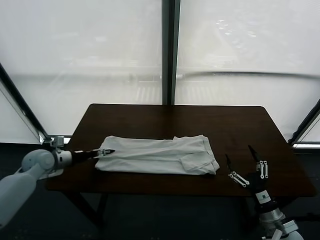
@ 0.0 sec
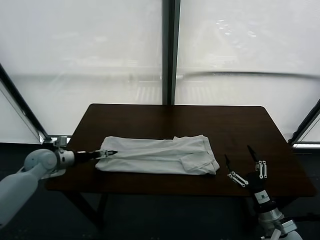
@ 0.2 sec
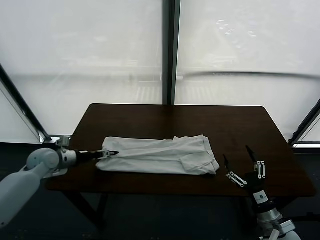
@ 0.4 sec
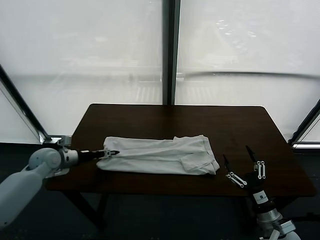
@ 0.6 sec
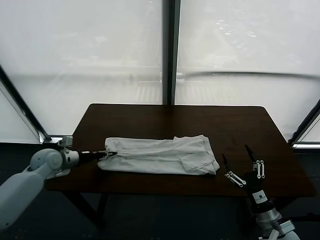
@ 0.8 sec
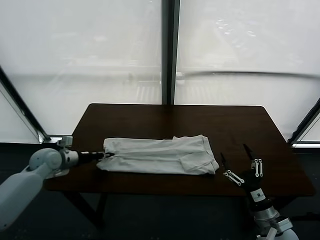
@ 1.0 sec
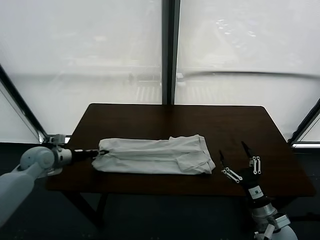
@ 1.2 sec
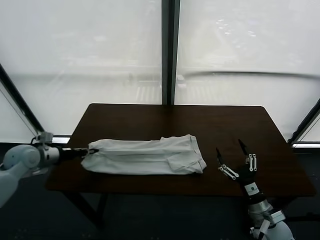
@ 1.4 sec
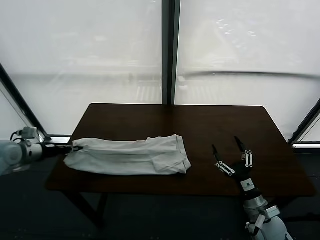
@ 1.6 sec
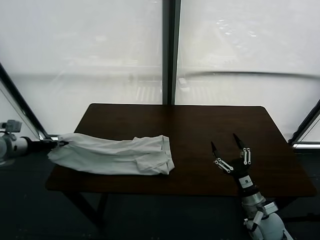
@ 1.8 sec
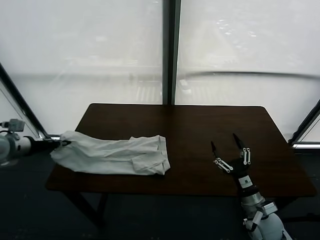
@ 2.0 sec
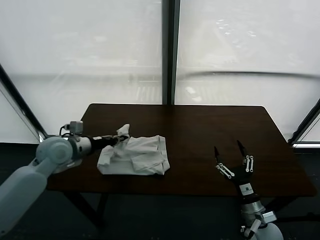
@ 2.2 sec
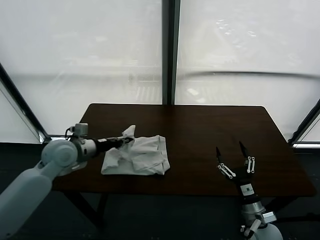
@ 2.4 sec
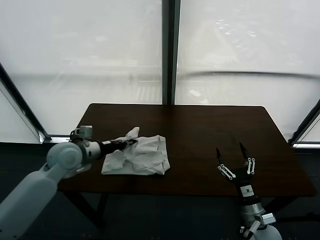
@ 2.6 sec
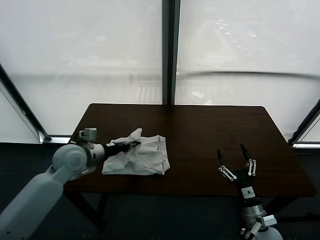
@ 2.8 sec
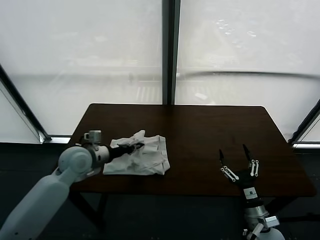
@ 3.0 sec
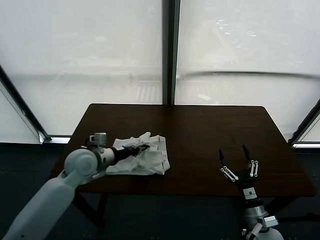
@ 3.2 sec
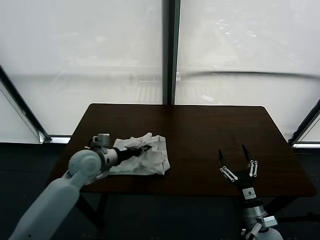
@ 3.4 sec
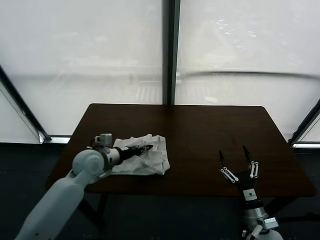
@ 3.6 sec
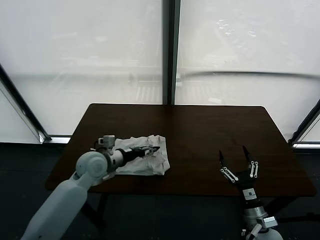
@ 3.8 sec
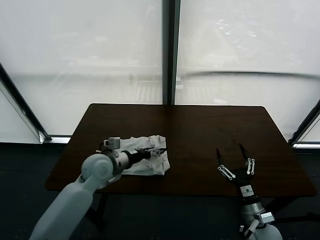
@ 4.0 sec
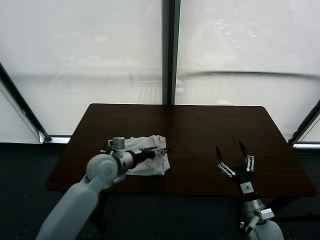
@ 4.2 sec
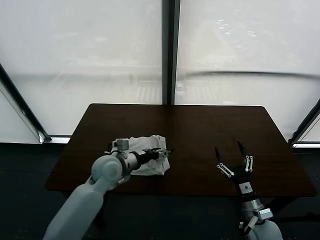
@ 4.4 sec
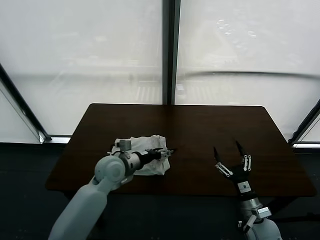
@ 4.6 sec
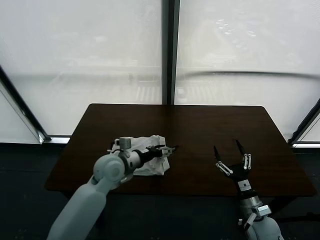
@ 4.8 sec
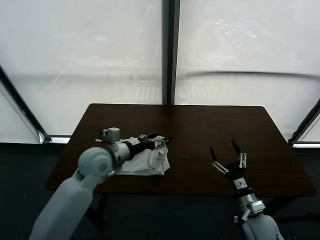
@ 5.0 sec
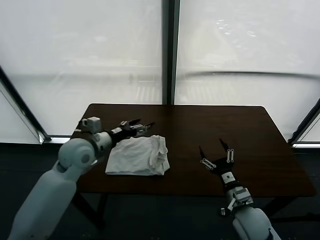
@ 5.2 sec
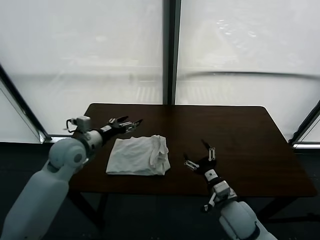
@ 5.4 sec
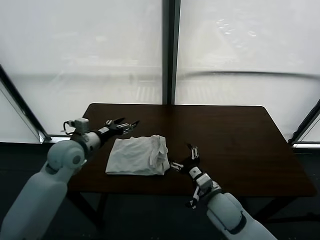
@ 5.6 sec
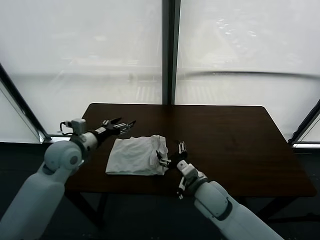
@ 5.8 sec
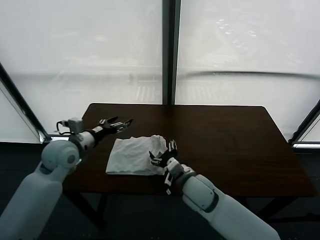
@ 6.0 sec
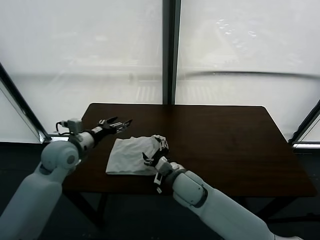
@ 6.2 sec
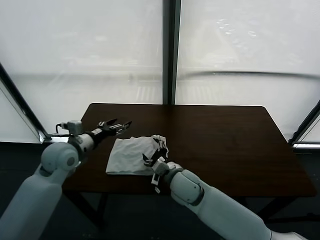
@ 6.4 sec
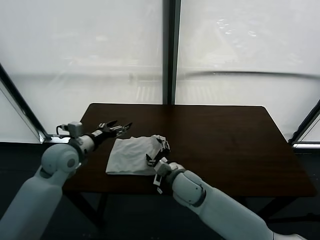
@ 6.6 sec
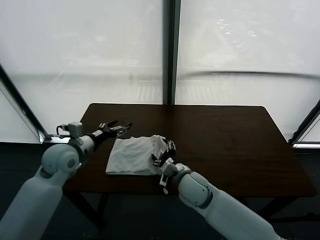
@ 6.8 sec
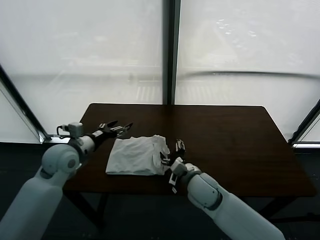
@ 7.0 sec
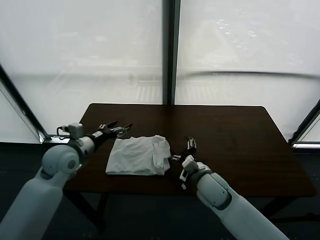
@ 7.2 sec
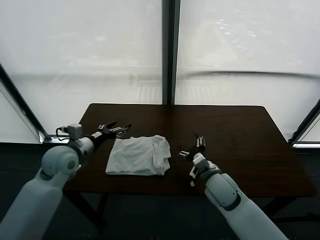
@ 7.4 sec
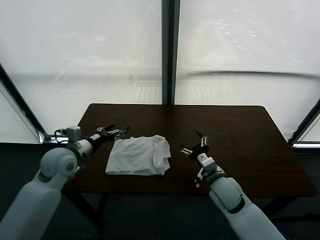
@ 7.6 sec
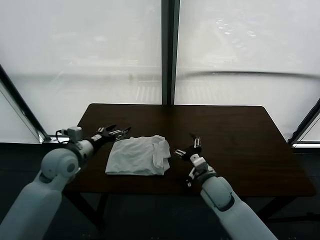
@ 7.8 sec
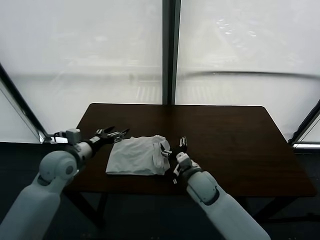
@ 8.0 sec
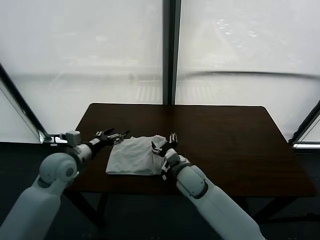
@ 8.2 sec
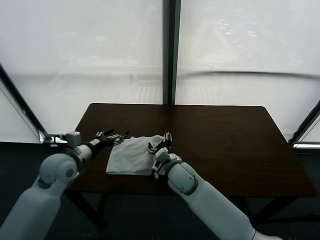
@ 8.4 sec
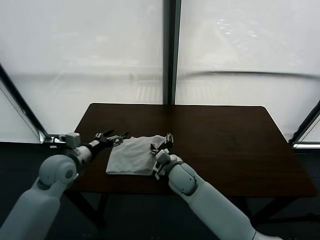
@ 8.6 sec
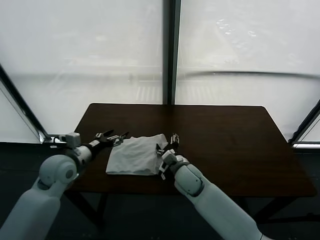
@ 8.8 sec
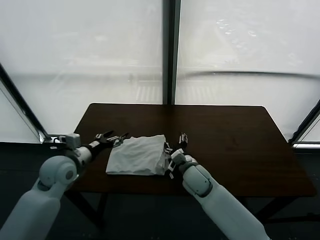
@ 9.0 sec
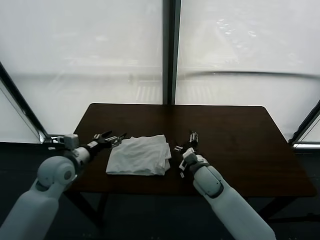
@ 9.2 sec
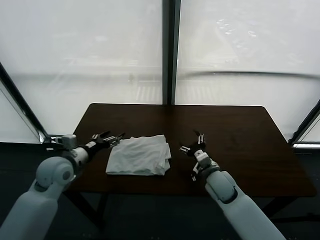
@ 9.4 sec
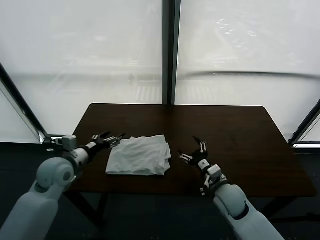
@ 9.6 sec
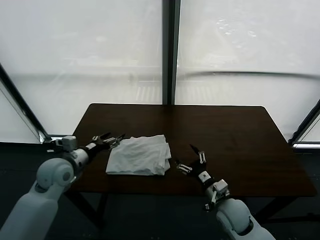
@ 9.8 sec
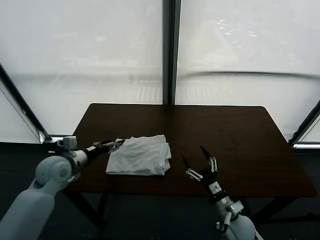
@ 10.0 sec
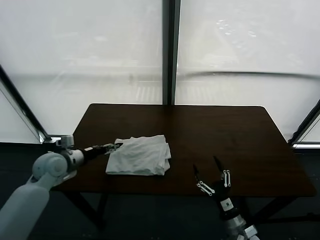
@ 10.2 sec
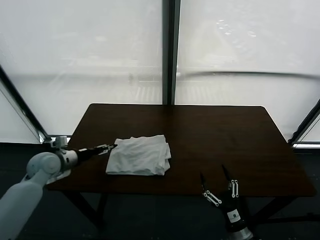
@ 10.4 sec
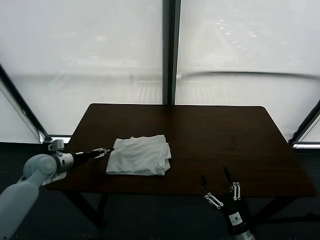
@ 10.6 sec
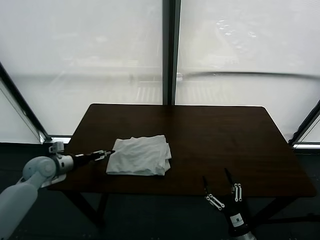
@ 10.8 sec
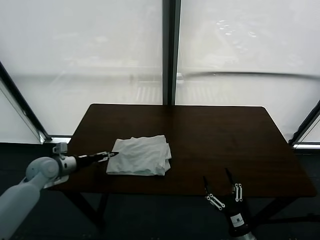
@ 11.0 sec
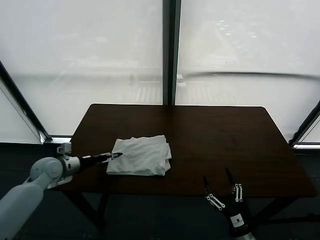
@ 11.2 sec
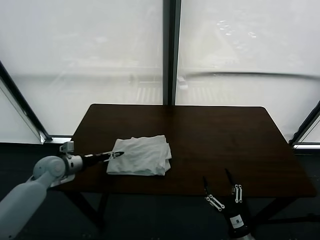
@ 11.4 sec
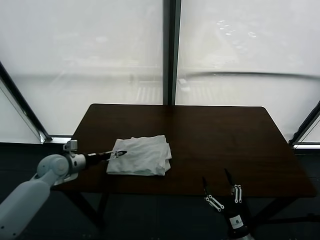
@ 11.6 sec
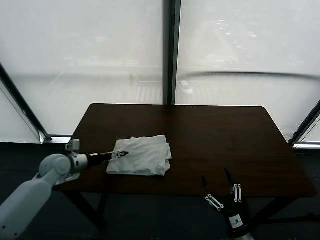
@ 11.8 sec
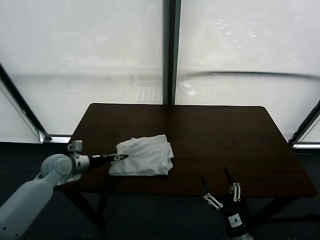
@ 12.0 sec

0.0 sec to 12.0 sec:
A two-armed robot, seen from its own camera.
Task of the whole recording: fold and organize the clothes.
Step, 1.2 sec to 4.6 sec: use the left gripper to drag the left edge of the fabric to the left and folds it over the right edge.
0.0 sec to 1.6 sec: The left gripper is displaced upward and to the left by some 15 cm, and closes up. The right gripper shifts by approximately 5 cm.
1.6 sec to 3.0 sec: The left gripper shifts approximately 25 cm to the right and downward.
3.0 sec to 4.4 sec: The left gripper goes some 10 cm to the right, and opens up.
4.4 sec to 6.0 sec: The left gripper shifts about 15 cm to the left and upward. Meanwhile the right gripper goes approximately 25 cm to the left, forward and upward.
6.0 sec to 7.6 sec: The right gripper heads to the right, covering roughly 10 cm.
9.0 sec to 10.4 sec: The left gripper travels to the left by about 5 cm. The right gripper goes about 30 cm backward, to the right and downward.
10.4 sec to 12.0 sec: There are only small adjustments of the grippers.

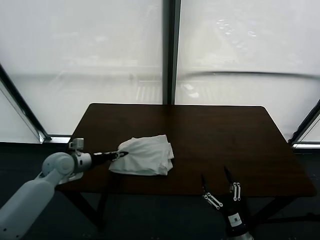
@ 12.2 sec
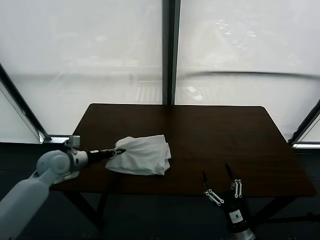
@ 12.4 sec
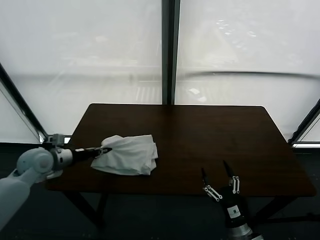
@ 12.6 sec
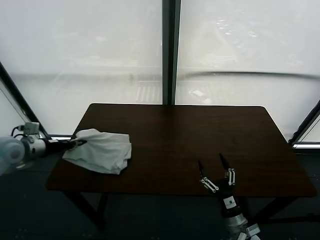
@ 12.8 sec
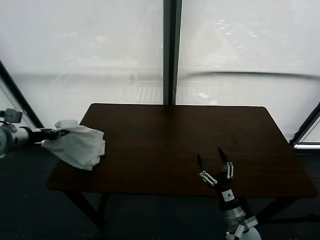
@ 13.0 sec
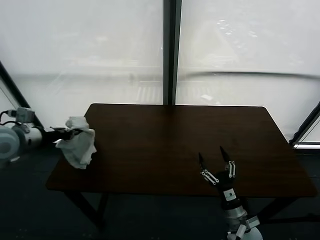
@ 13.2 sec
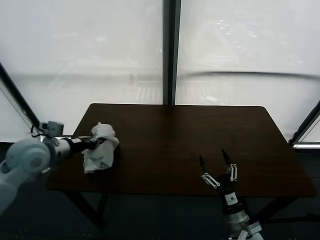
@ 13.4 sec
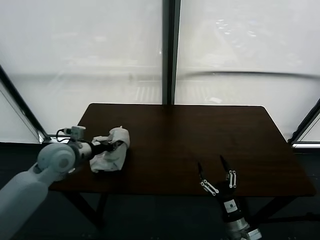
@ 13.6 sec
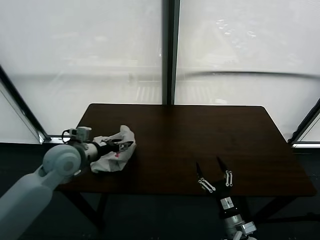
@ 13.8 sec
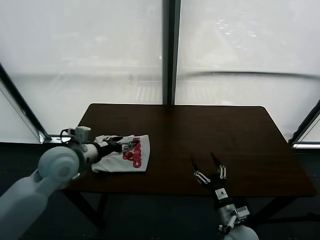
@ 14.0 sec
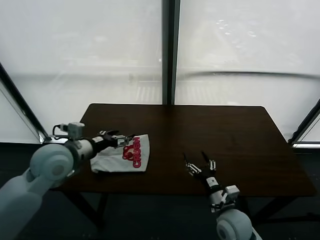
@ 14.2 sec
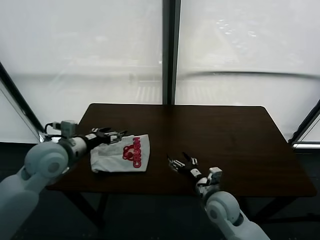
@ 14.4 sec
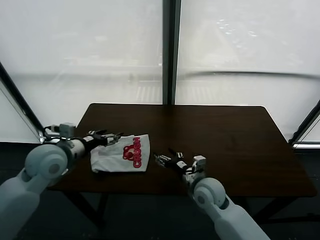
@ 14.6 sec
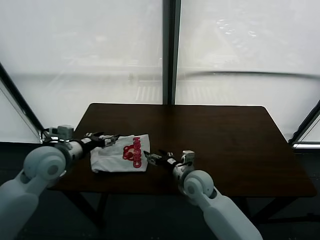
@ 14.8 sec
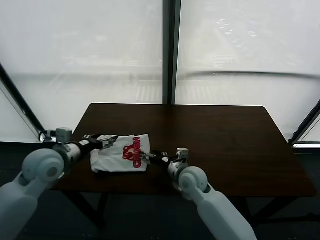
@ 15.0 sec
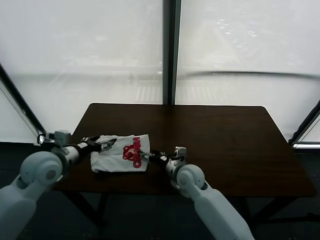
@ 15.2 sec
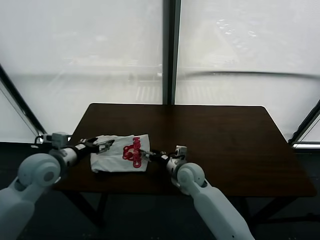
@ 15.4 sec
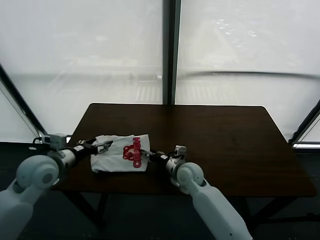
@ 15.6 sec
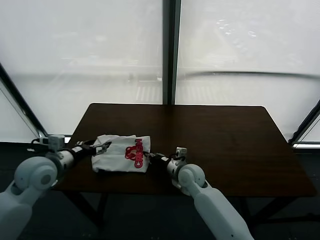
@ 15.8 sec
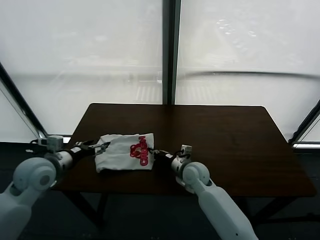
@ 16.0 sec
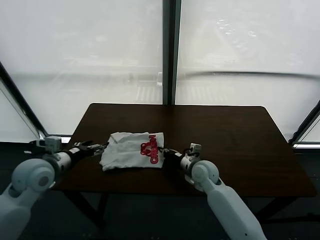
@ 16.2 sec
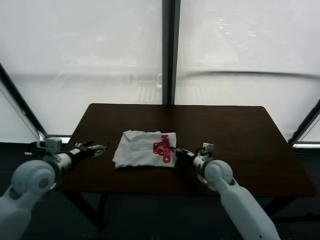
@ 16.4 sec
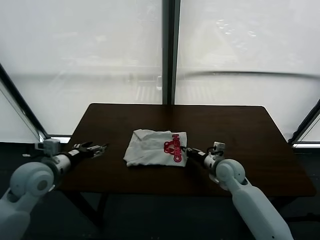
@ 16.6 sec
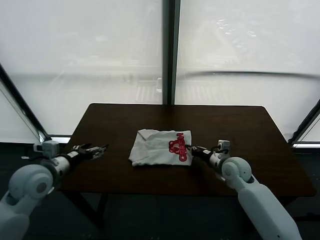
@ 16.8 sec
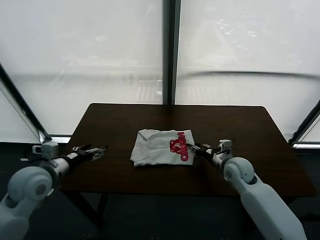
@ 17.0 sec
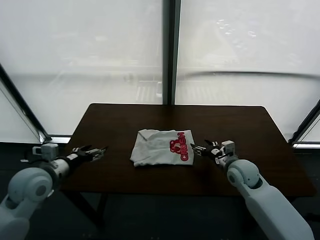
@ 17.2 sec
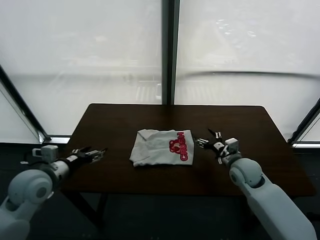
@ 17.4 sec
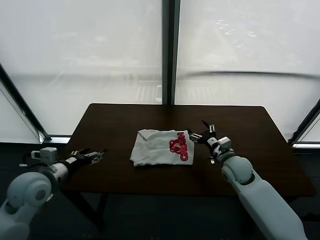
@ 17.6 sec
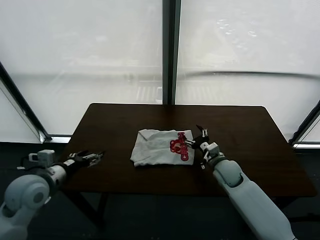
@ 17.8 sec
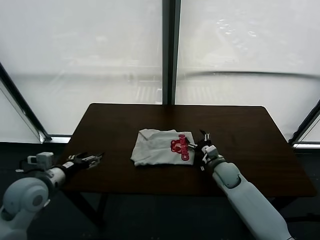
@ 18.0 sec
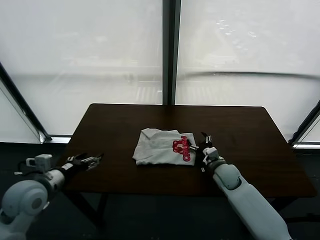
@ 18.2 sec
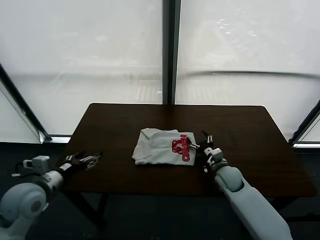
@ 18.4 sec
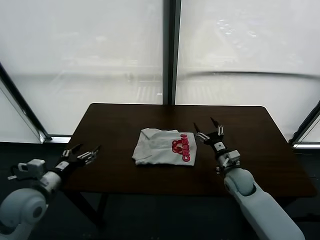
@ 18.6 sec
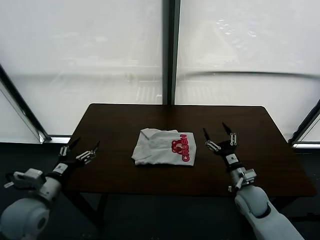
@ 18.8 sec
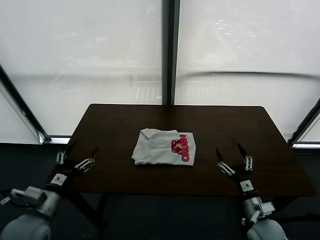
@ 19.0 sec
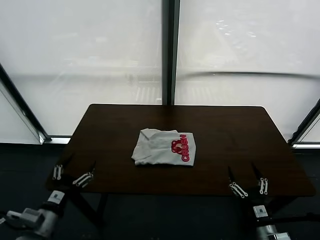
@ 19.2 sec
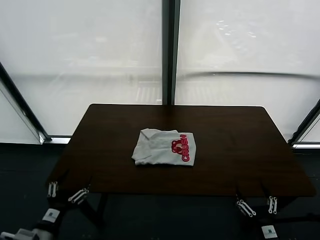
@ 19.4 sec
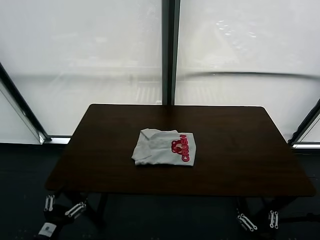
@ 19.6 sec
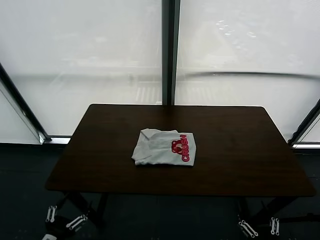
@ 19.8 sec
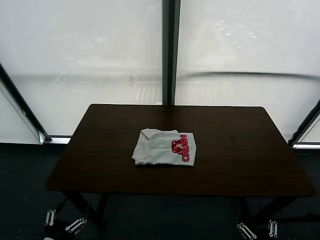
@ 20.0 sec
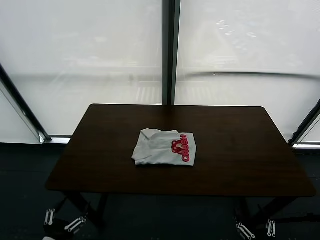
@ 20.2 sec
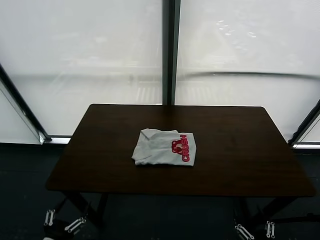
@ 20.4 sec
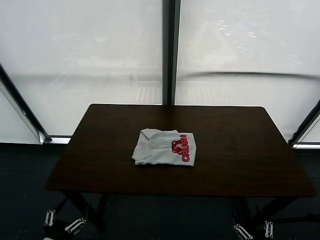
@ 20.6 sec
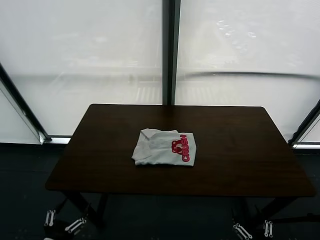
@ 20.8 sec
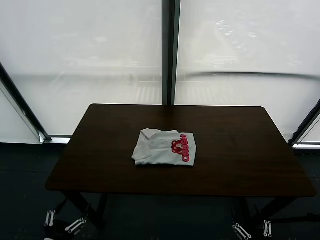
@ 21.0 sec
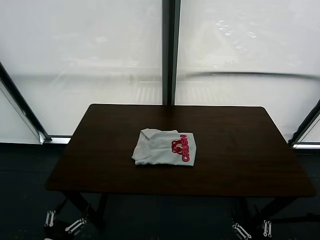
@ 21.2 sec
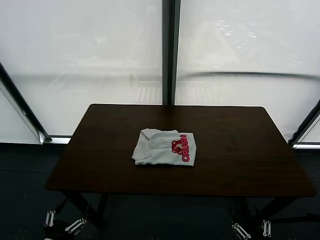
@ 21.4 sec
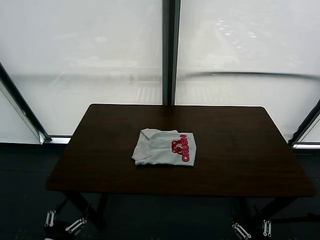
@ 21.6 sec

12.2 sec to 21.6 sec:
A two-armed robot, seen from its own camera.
Task of the whole recording: fold and organize the clothes.
Step, 14.2 sec to 17.2 sec: Drag the clothes to the center of the table.
12.2 sec to 13.8 sec: The left gripper goes roughly 10 cm upward and to the right.
13.8 sec to 15.4 sec: The right gripper heads forward and to the left, covering roughly 25 cm, while the left gripper ends up roughly 5 cm from where it was, and opens up.
15.4 sec to 17.0 sec: The right gripper moves to the right, roughly 15 cm, and closes up.
17.0 sec to 18.4 sec: The right gripper shifts approximately 10 cm downward, and opens up.
18.4 sec to 20.0 sec: The right gripper moves backward, some 40 cm; the left gripper heads backward and downward, covering some 25 cm.
20.0 sec to 21.6 sec: Both grippers stay about where they are.
